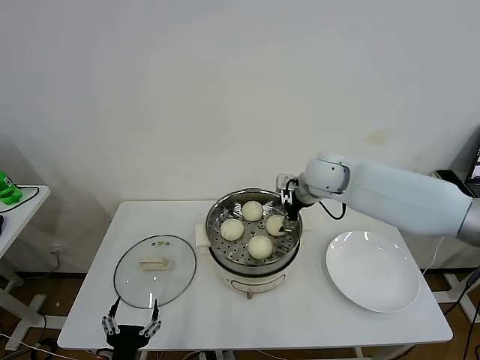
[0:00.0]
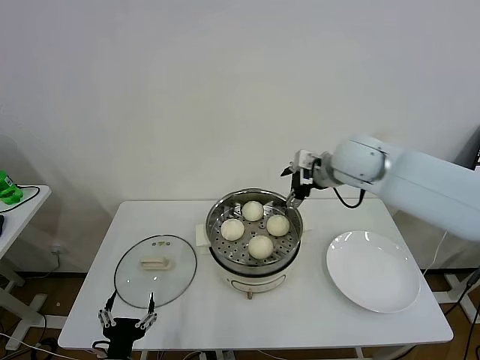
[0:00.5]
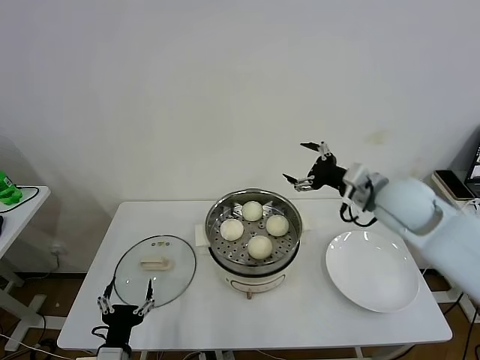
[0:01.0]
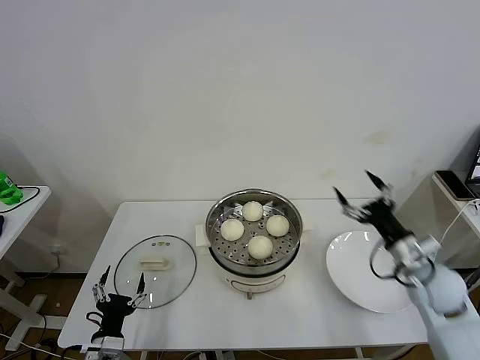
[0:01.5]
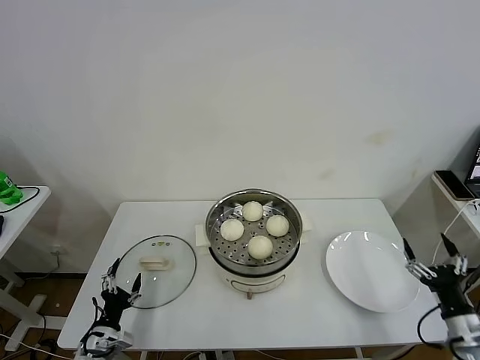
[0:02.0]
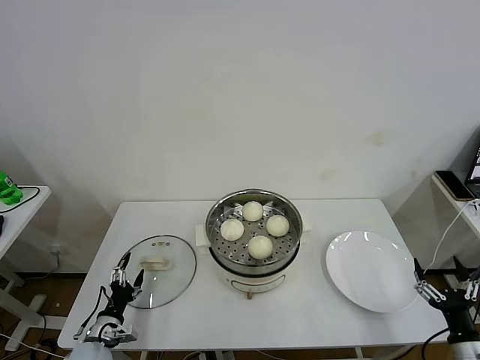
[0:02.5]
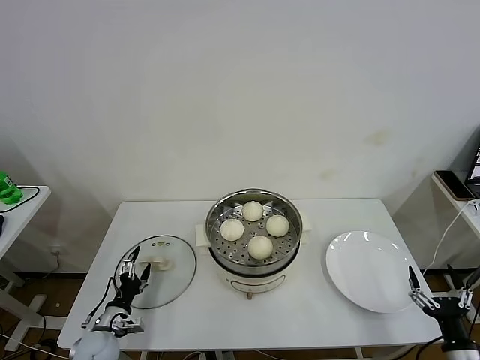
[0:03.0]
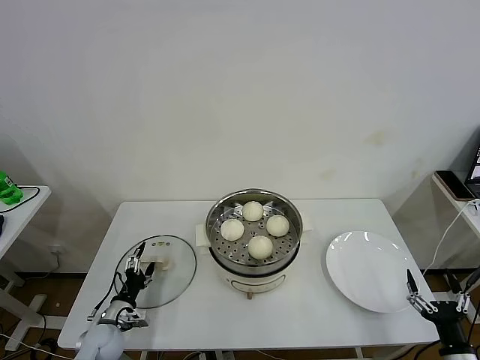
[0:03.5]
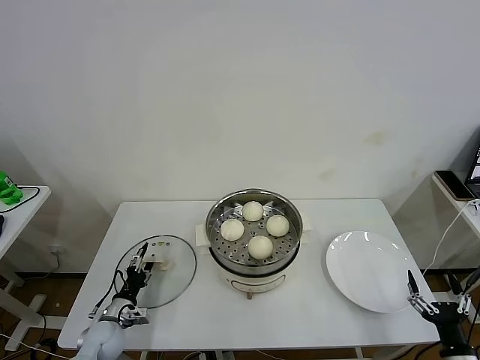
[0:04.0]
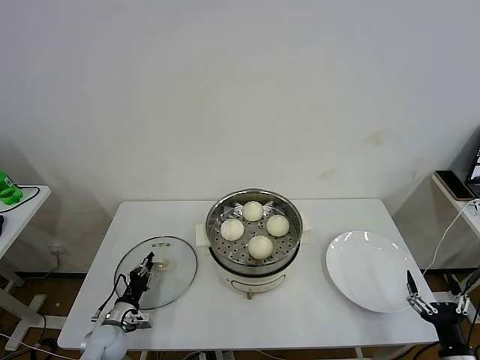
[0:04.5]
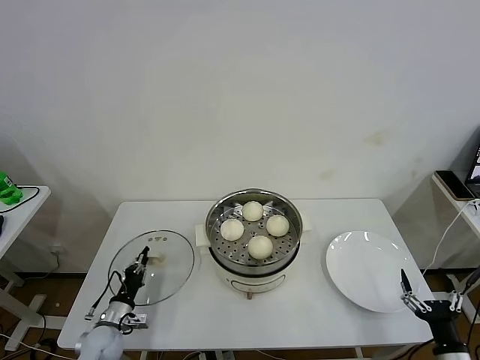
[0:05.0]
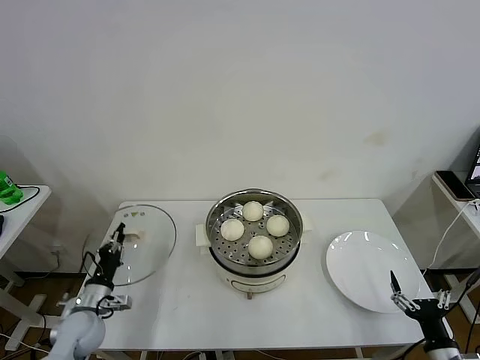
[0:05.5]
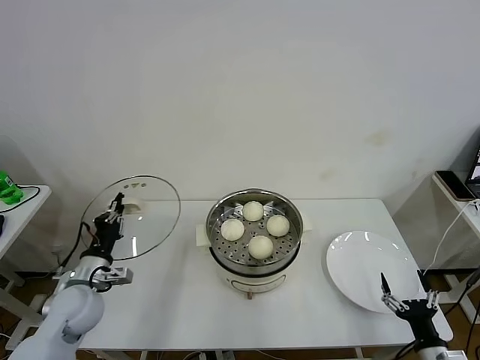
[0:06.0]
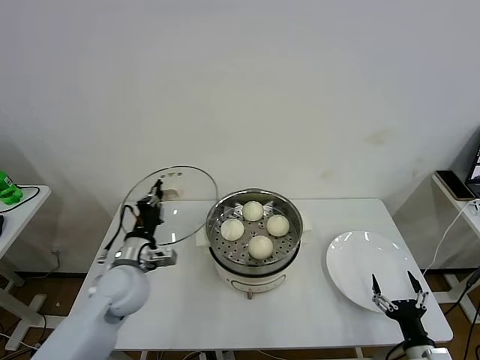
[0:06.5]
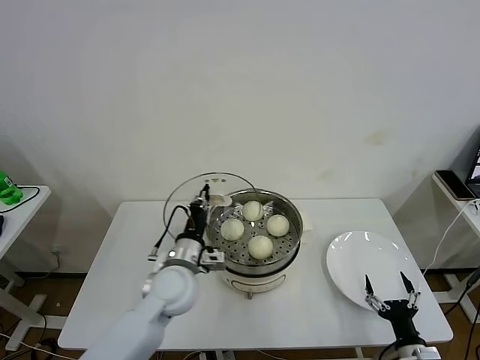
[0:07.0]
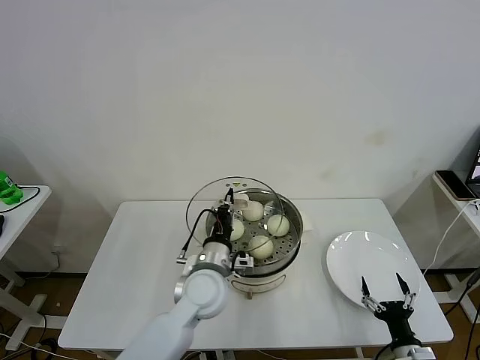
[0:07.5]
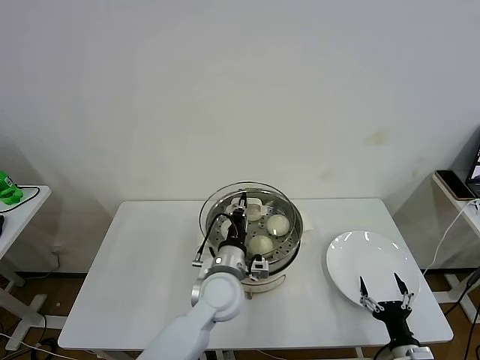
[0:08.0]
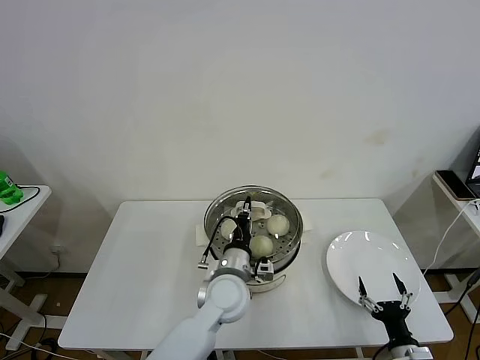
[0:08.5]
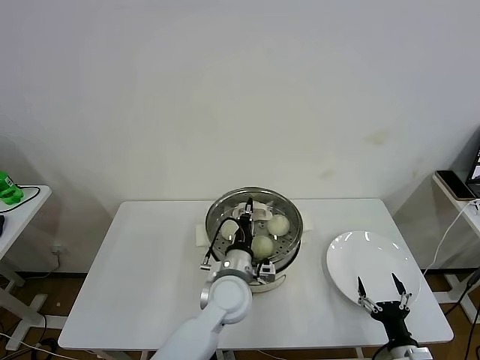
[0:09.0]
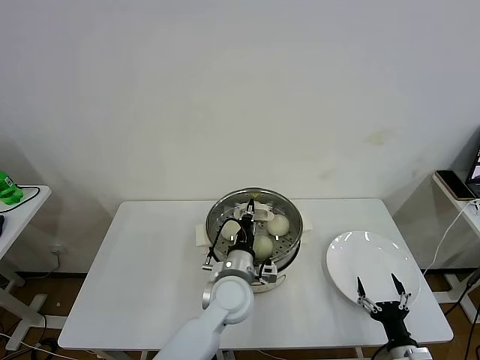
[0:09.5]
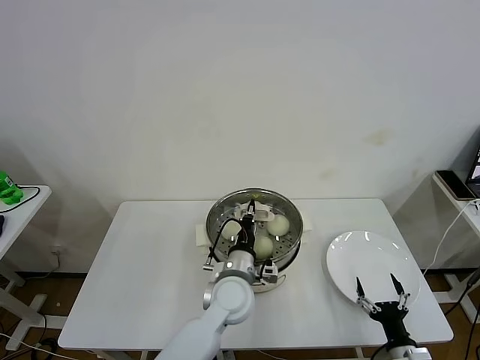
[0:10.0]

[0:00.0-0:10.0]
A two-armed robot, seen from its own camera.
Task of the whole recording: take steamed baozi put them in steamer then cover it.
Step, 0:00.0 to 0:04.5: Grasp the pot lid with left gripper.
0:00.0 to 0:02.0: The right gripper shifts roughly 50 cm backward, to the right and downward. Meanwhile the left gripper moves to the left, forward and downward, approximately 15 cm.
0:02.0 to 0:04.0: The left gripper goes about 10 cm forward. Meanwhile the right gripper heads backward, covering some 5 cm.
0:04.0 to 0:06.0: The left gripper goes approximately 15 cm upward, and closes.
0:06.0 to 0:08.0: The left gripper shifts roughly 30 cm to the right. Meanwhile the right gripper shifts by roughly 5 cm.
0:08.0 to 0:10.0: The grippers make only small movements.

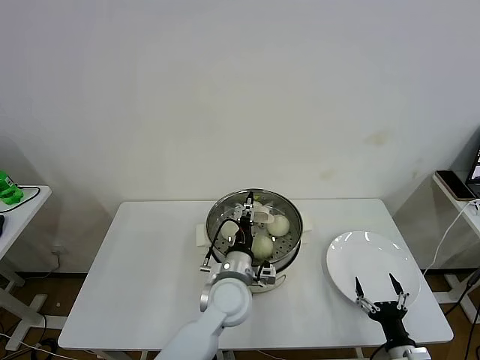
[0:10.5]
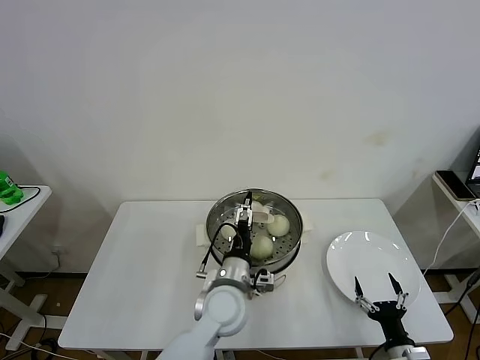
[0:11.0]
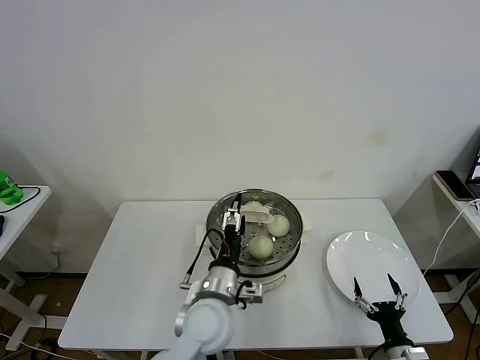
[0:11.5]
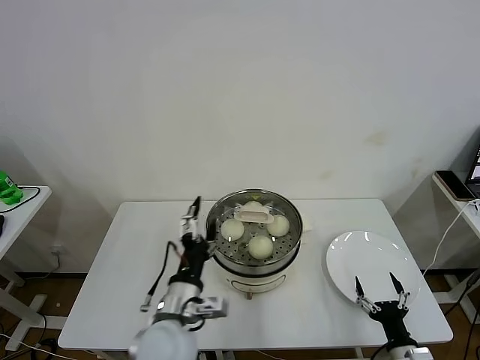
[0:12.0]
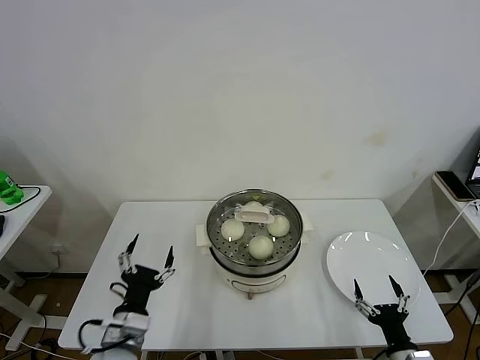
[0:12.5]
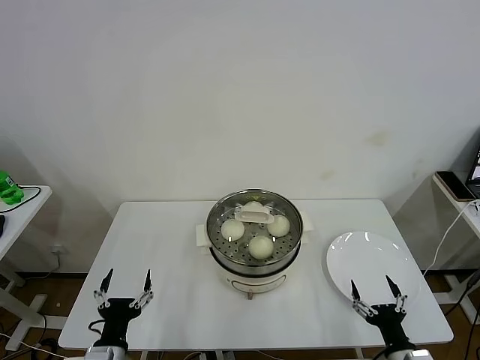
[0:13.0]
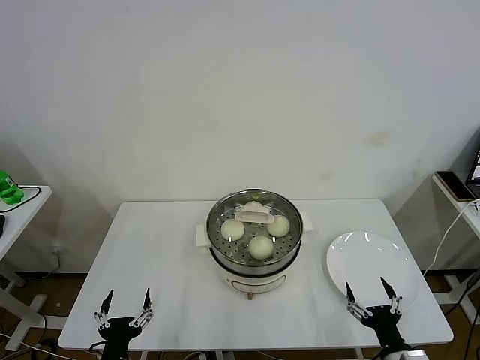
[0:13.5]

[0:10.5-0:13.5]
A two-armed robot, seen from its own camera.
Task of the whole recording: take steamed baozi put them in steamer then cover it.
0:10.5 to 0:12.0: The left gripper moves backward, to the left and upward, roughly 15 cm, and opens up.
0:12.0 to 0:13.5: The right gripper ends up some 5 cm from where it was. Meanwhile the left gripper moves to the left, downward and backward, some 25 cm.
